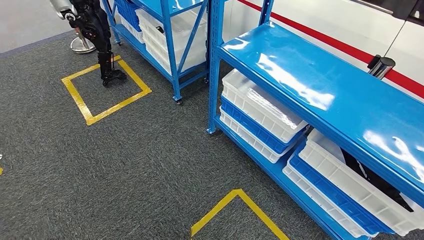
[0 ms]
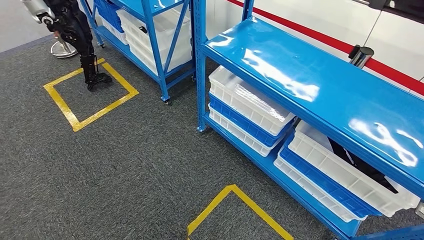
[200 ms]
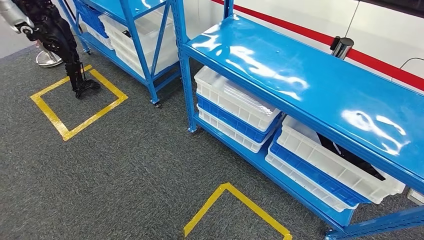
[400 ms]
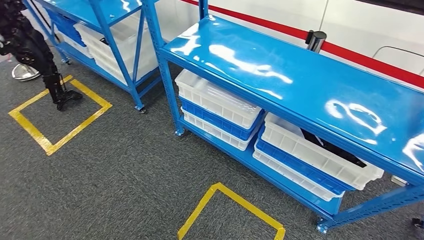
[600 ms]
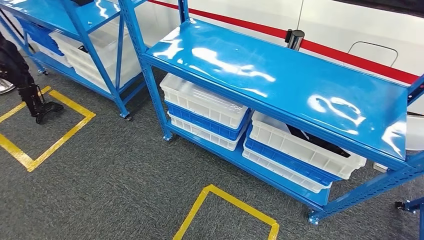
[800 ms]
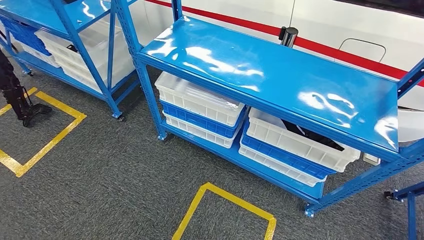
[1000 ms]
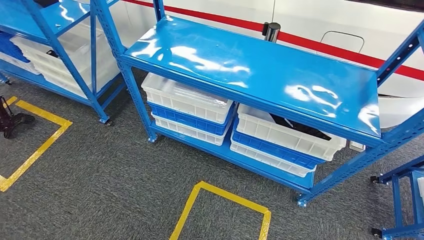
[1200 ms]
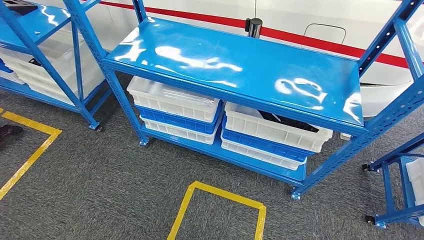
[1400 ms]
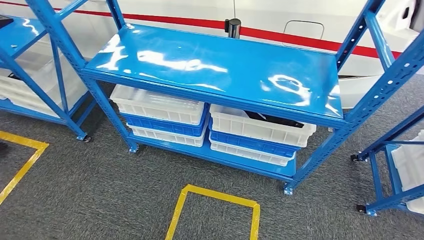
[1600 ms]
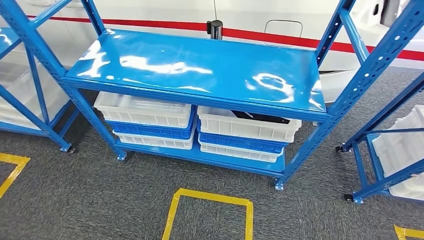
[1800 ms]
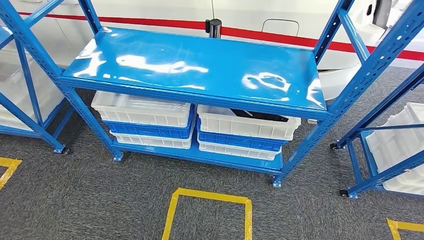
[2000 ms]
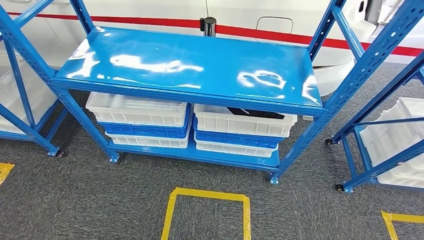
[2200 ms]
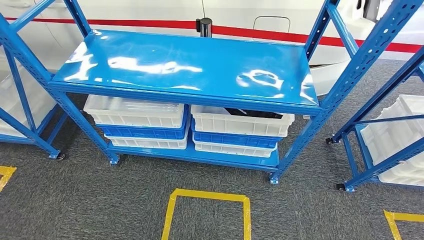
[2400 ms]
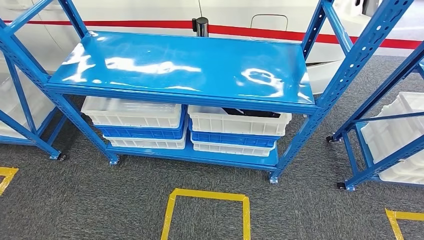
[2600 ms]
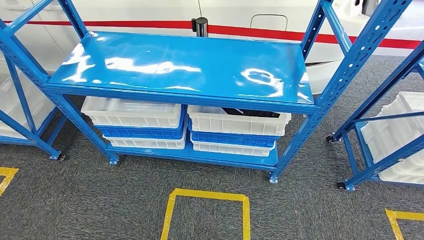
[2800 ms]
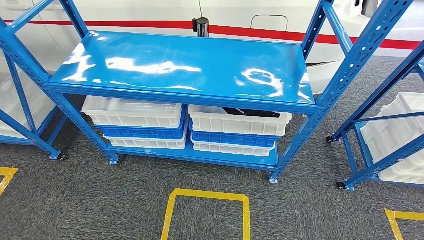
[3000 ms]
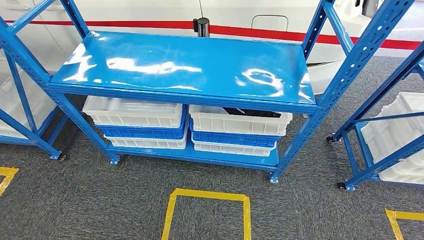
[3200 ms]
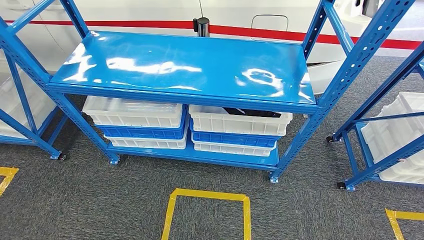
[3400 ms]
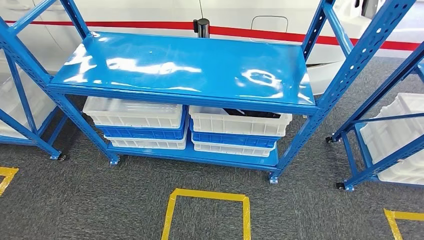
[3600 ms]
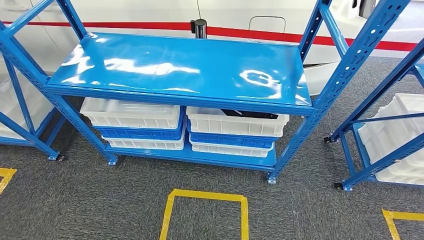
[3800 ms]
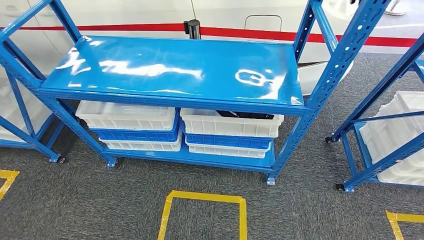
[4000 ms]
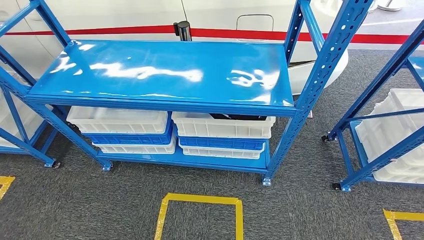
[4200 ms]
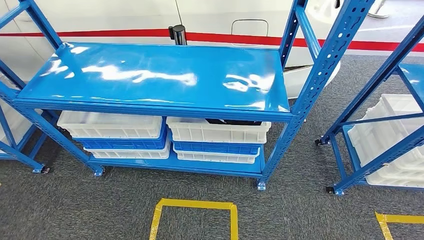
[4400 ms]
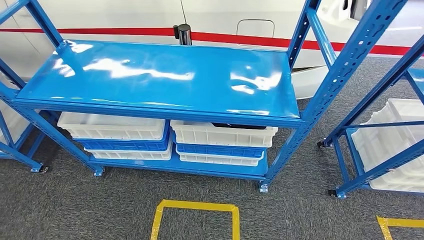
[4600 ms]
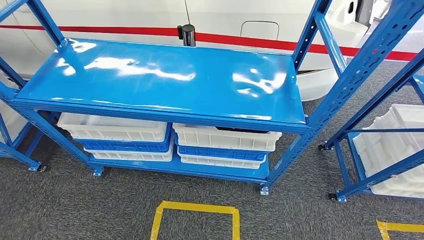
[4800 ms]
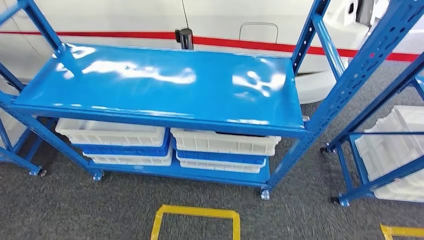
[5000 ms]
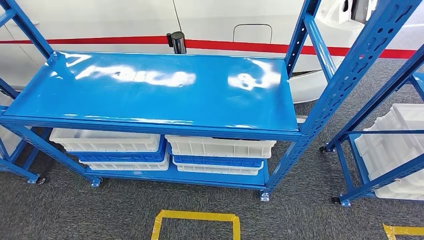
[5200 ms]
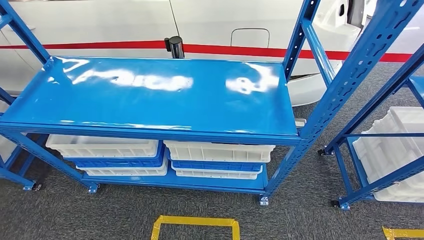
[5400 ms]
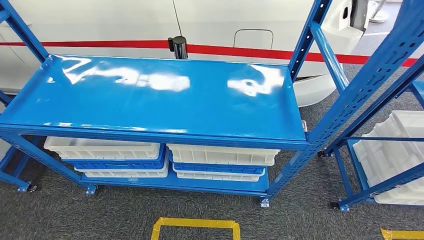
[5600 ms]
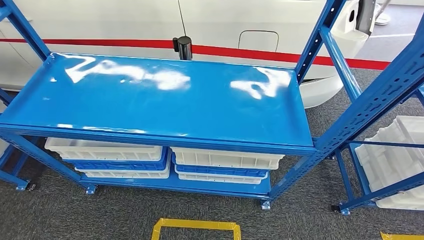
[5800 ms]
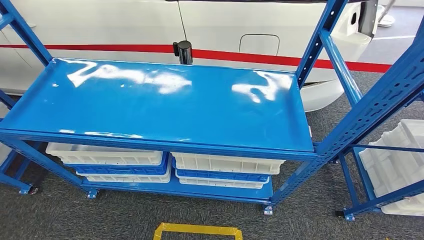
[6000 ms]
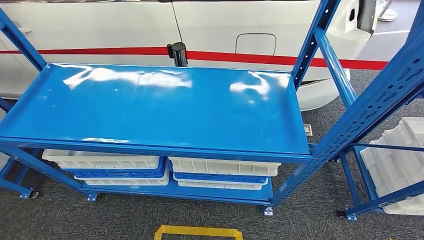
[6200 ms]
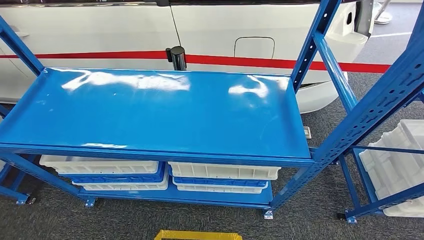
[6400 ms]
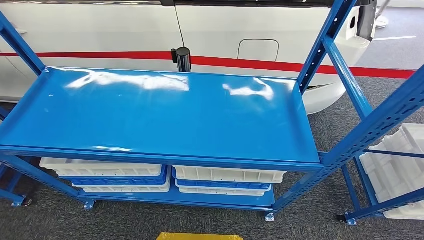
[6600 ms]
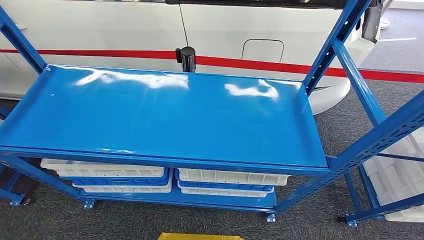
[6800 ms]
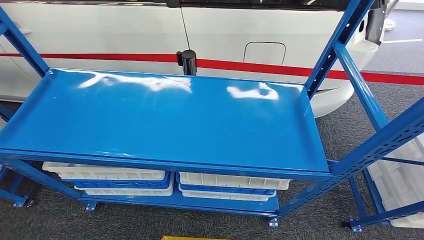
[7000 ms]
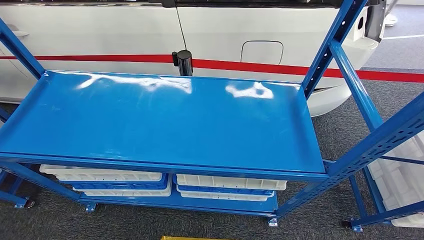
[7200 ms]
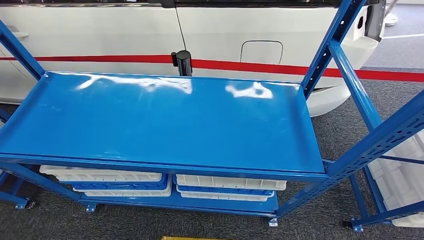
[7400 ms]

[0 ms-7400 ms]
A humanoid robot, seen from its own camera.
Step, 0 ms to 7400 ms: Move to the initial position of the shelf.
